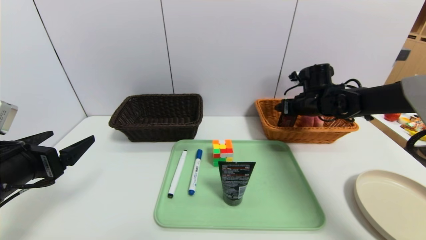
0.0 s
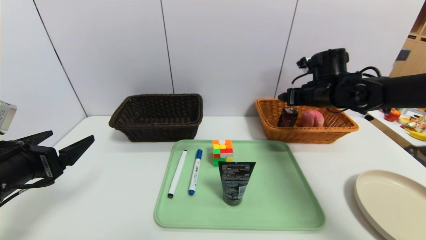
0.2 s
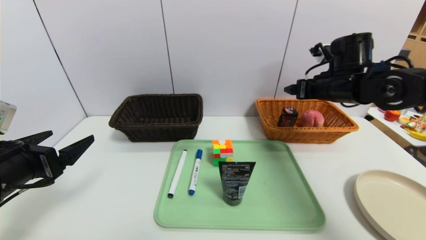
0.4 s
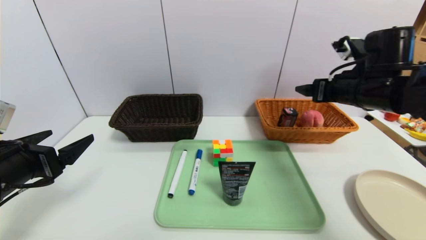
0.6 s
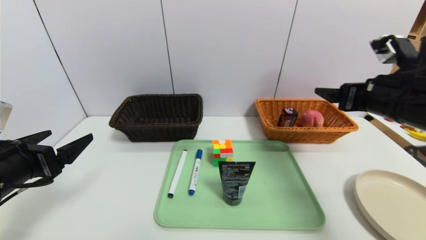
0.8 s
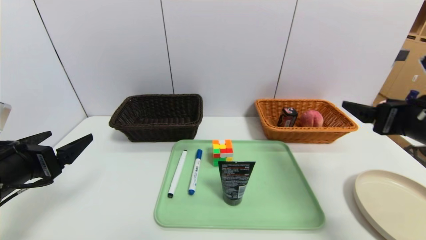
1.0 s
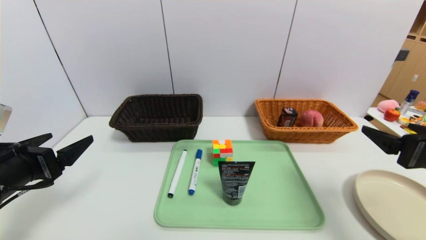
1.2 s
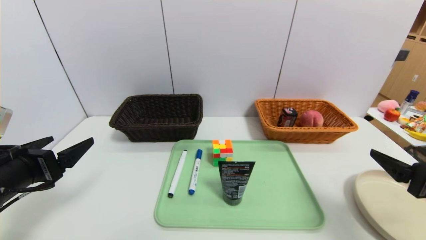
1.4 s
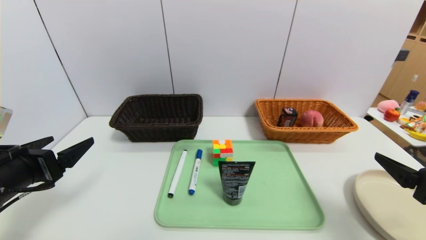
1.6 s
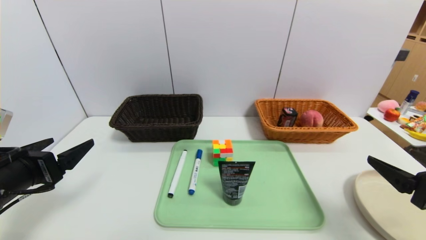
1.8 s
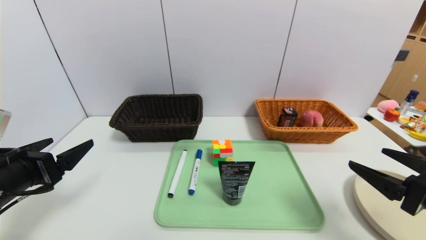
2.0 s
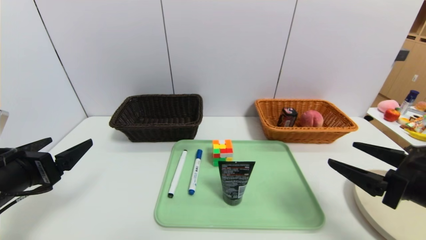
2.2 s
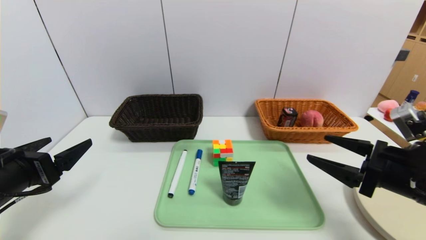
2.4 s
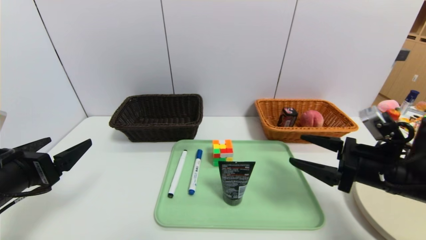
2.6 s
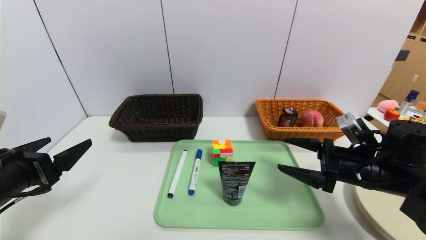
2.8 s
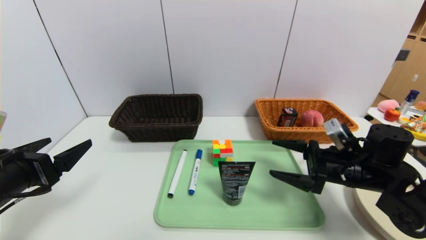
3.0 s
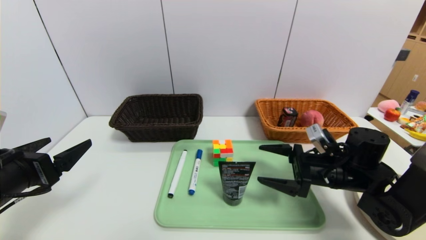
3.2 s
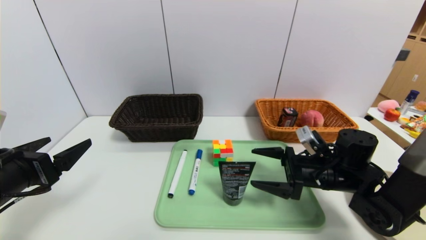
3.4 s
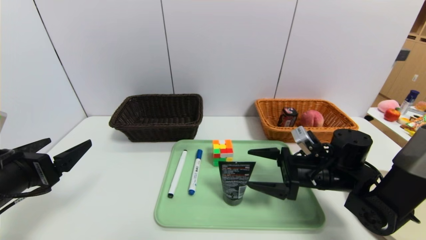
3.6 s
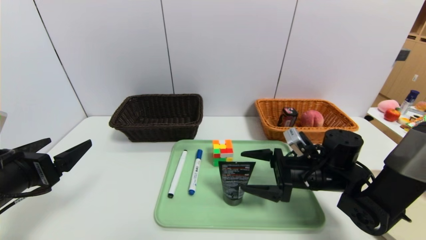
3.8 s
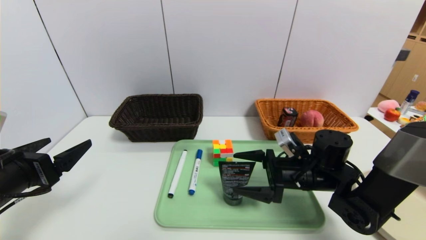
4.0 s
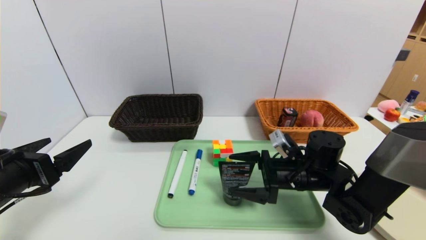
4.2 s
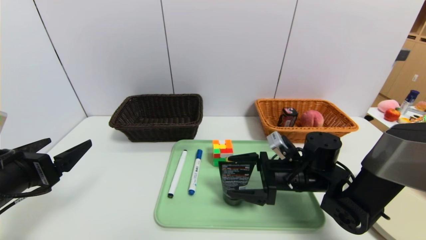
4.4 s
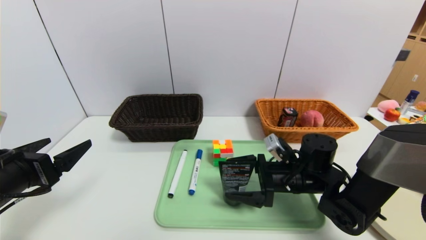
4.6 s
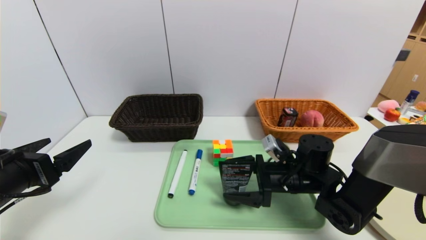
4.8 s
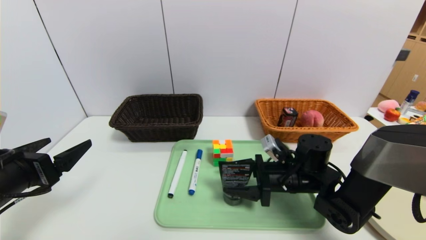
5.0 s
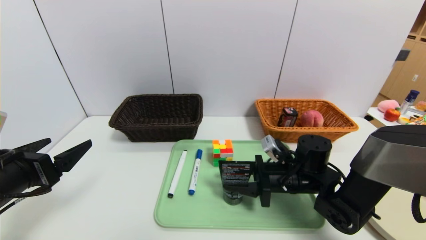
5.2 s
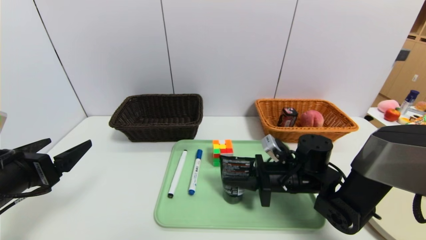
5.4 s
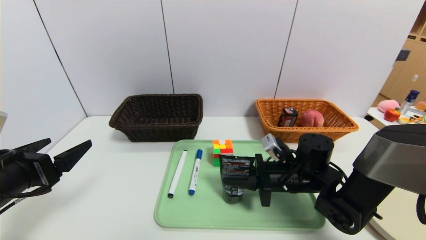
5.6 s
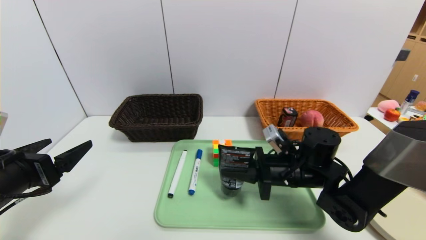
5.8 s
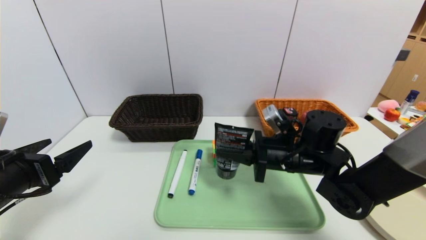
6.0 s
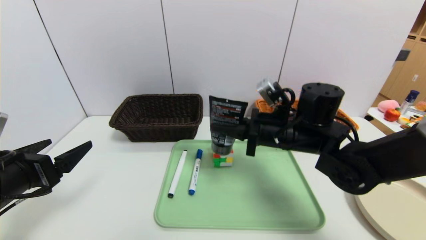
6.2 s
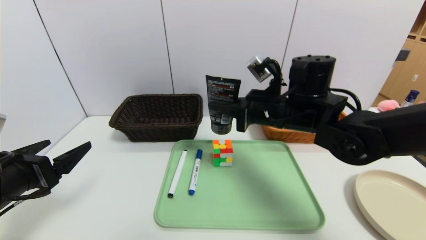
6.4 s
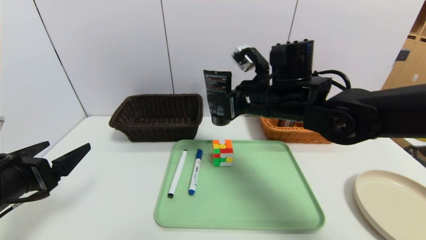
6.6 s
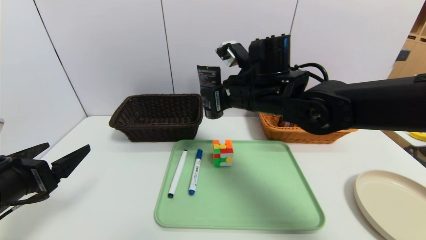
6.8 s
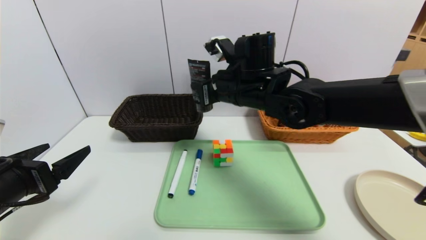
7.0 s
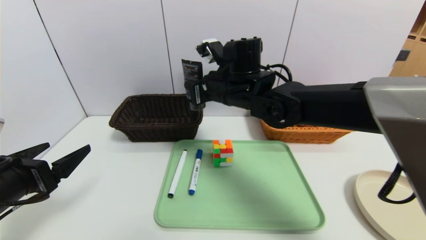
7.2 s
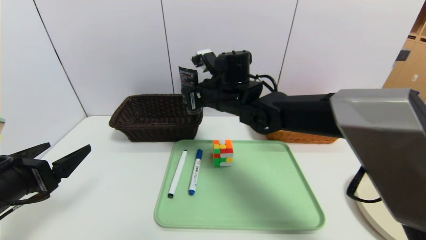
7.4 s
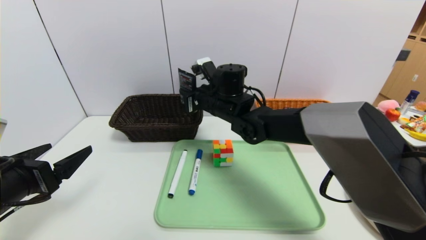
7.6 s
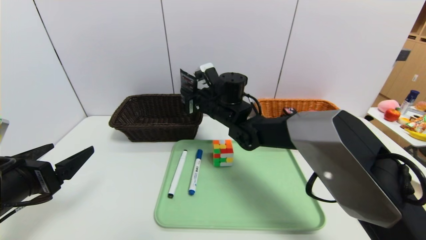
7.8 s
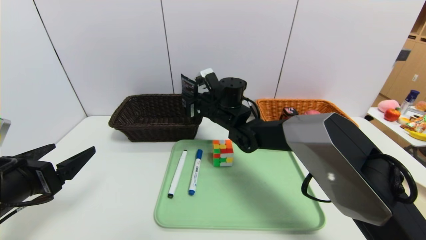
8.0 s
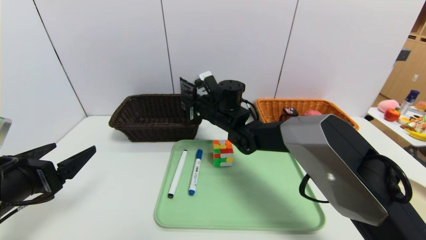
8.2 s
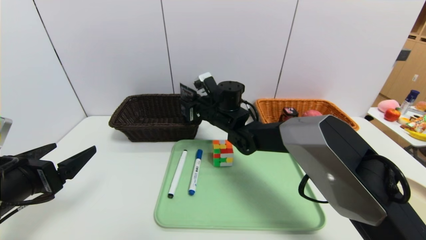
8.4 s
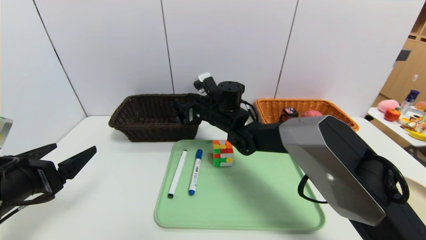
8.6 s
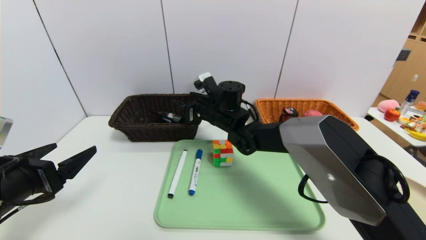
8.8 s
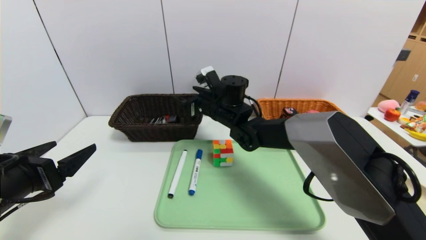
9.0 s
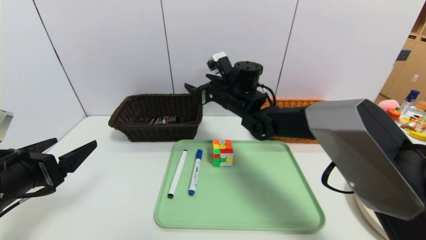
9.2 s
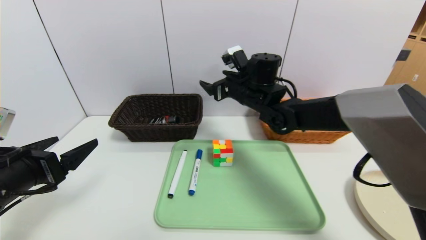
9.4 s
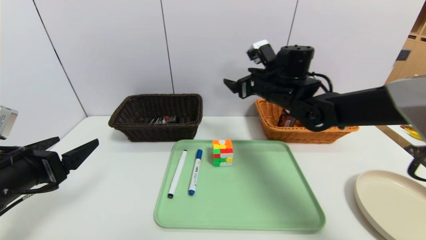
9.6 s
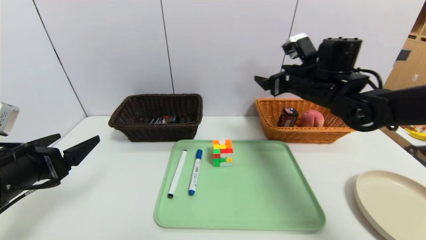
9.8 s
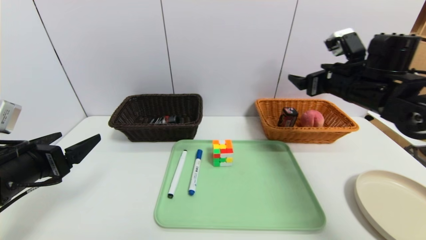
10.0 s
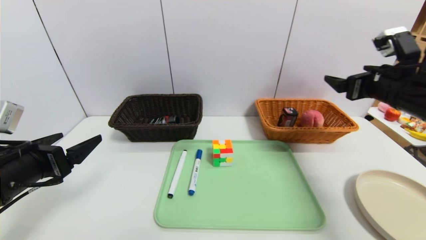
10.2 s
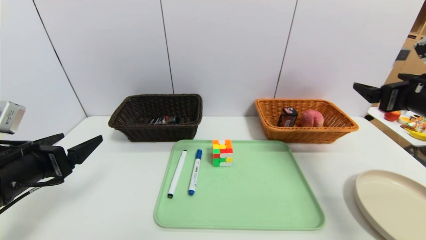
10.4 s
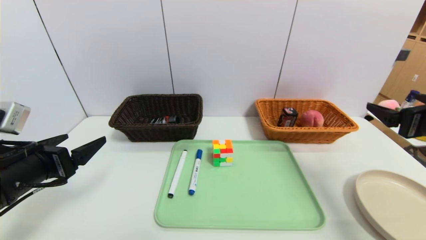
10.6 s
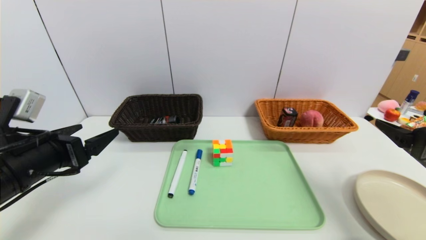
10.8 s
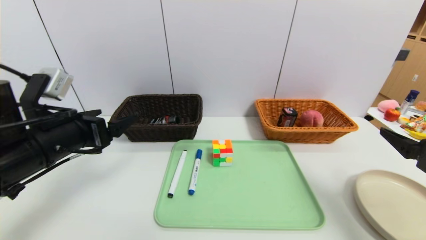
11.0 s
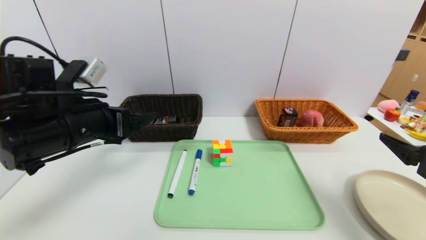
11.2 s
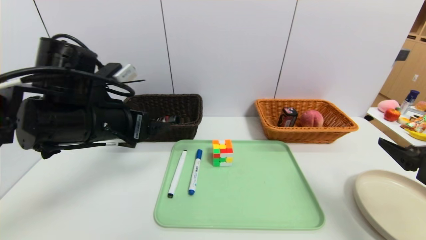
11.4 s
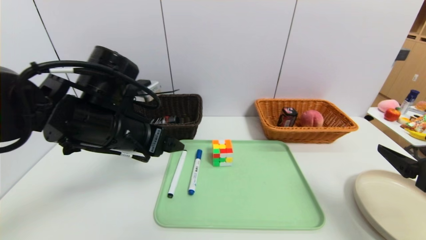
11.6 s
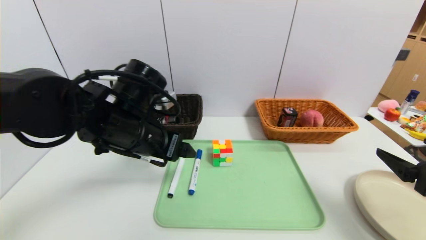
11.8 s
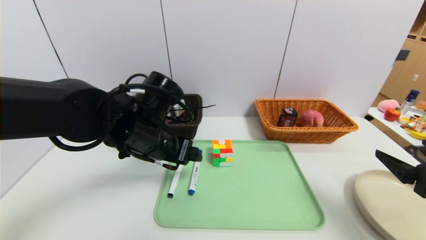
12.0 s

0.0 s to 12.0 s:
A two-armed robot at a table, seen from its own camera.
Task of the whole recording: place the food in the right basket with the right gripper, and place the non food items in the left basket with the left gripper.
0.0 to 1.6 s: The right gripper is displaced backward by approximately 30 cm.
1.6 to 3.0 s: The right gripper heads forward, downward and to the left, covering approximately 20 cm.
3.0 to 4.4 s: The right gripper travels to the left by about 10 cm.
4.4 to 6.0 s: The right gripper moves upward, approximately 5 cm, and closes its fingers.
6.0 to 7.6 s: The right gripper shifts about 20 cm to the left, forward and upward.
7.6 to 9.0 s: The right gripper opens up.
9.0 to 10.4 s: The right gripper travels to the right and backward by some 35 cm.
10.4 to 12.0 s: The left gripper heads to the right and forward, covering some 20 cm, while the right gripper goes about 15 cm backward and downward.

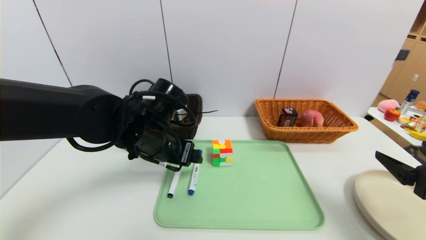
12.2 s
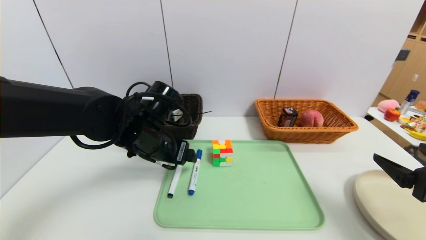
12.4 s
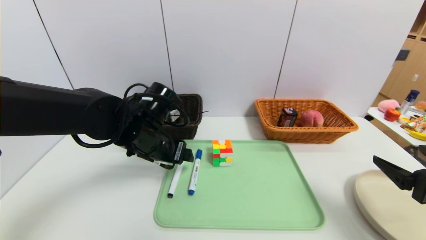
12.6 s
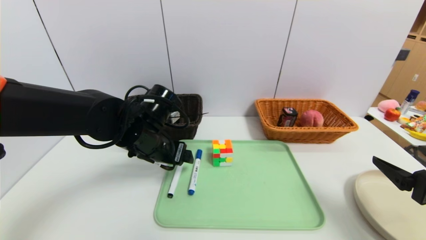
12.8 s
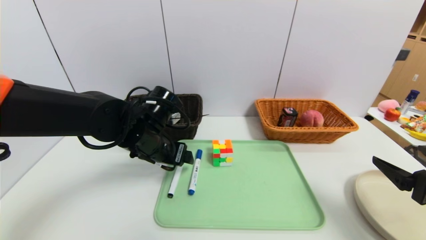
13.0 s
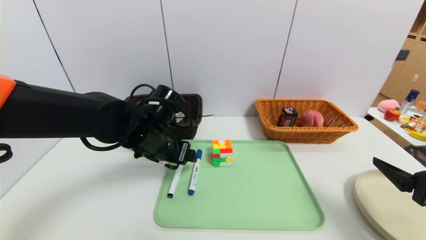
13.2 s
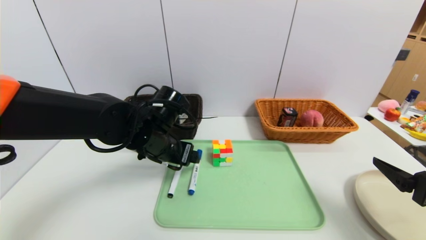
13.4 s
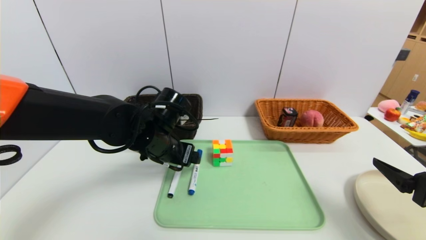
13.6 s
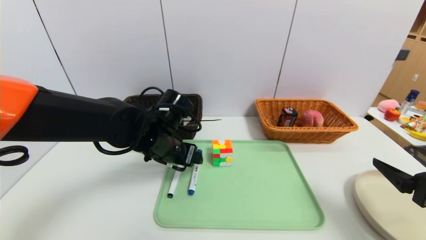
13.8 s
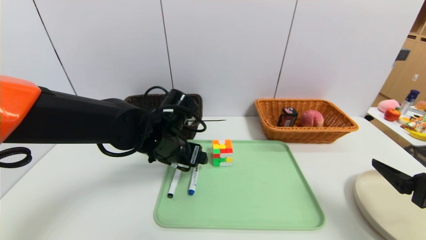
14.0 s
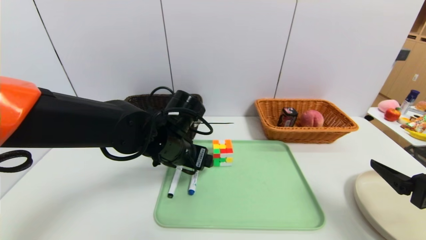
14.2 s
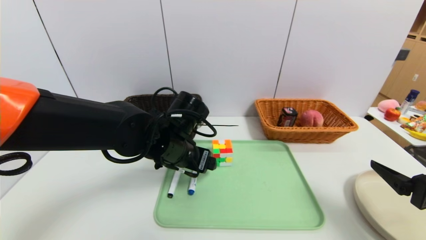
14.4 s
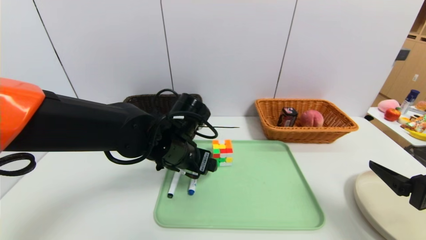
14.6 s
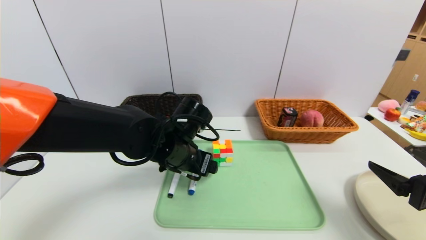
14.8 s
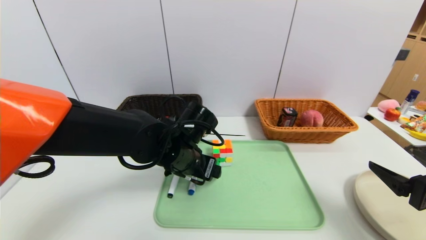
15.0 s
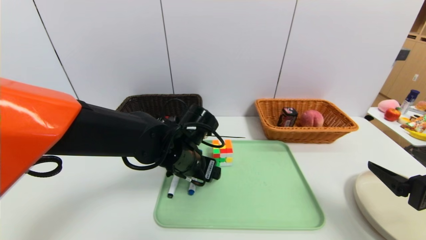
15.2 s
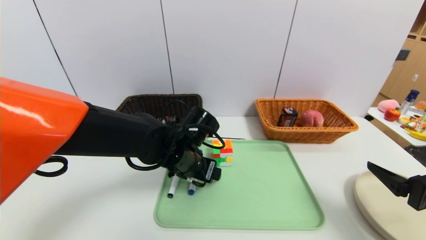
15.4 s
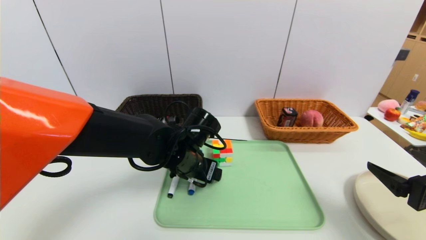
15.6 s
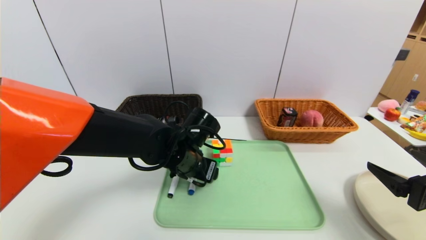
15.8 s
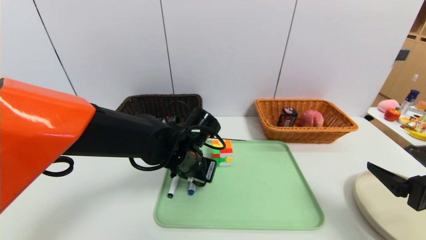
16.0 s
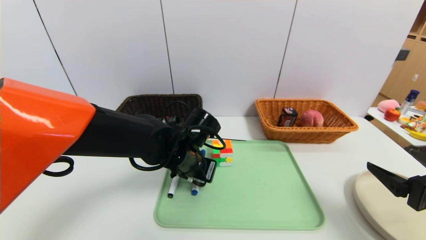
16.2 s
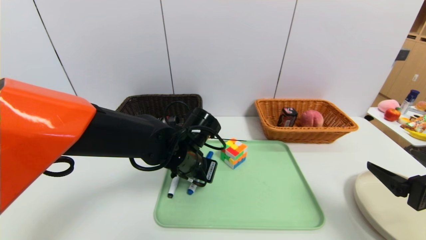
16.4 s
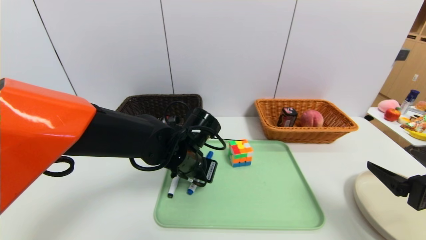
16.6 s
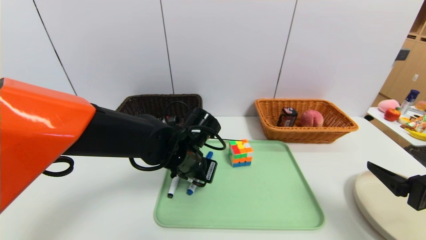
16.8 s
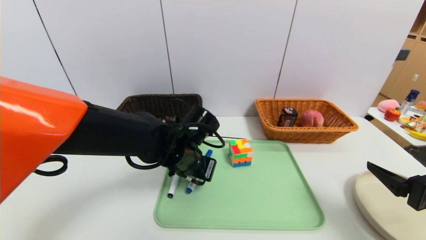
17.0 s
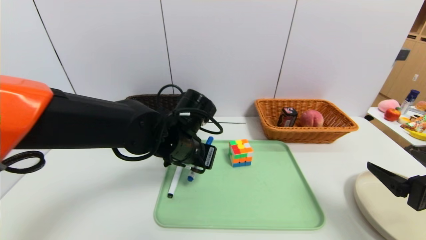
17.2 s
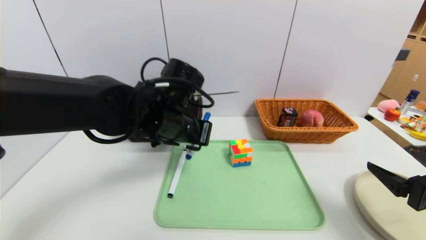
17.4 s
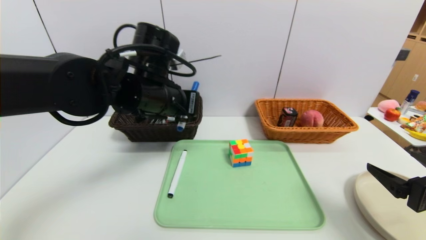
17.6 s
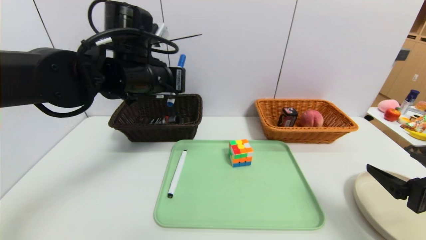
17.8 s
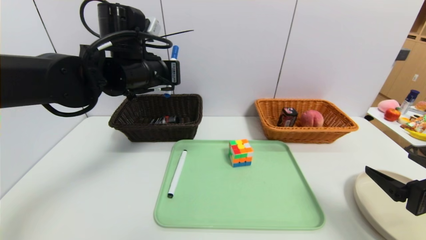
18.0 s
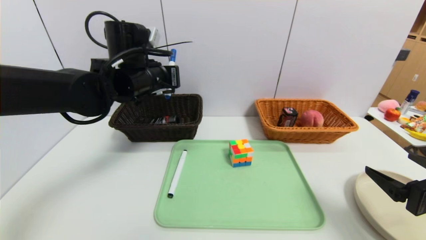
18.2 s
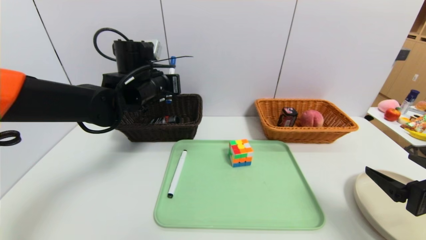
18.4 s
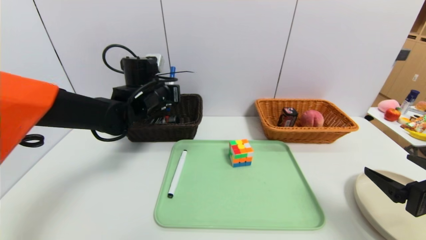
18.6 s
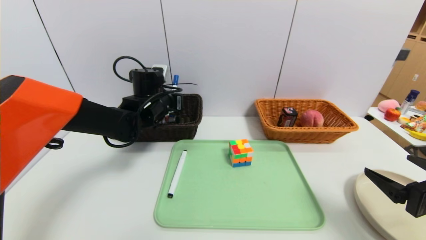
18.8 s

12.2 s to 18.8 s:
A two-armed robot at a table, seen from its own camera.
Task of the whole recording: place the food in the right basket with the right gripper, and place the non food items in the left basket with the left gripper.
12.2 to 13.8 s: The grippers move only a little.
13.8 to 15.4 s: The left gripper ends up roughly 5 cm from where it was.
15.4 to 17.2 s: The left gripper closes.
17.2 to 18.8 s: The left gripper moves forward and to the left, some 15 cm.
